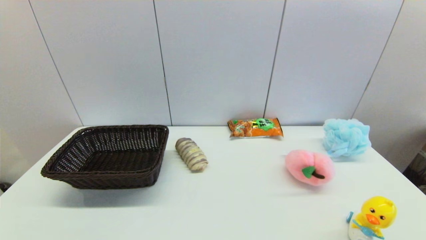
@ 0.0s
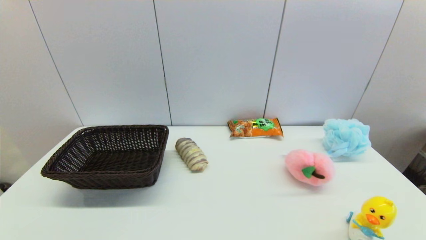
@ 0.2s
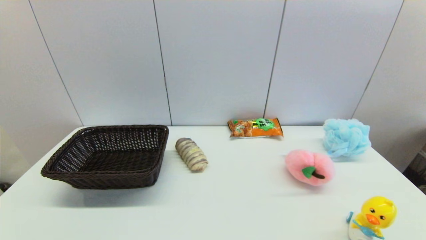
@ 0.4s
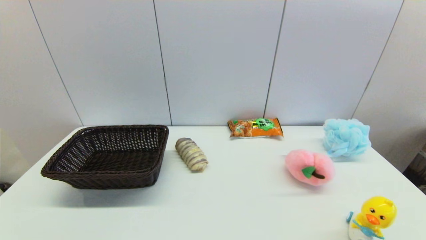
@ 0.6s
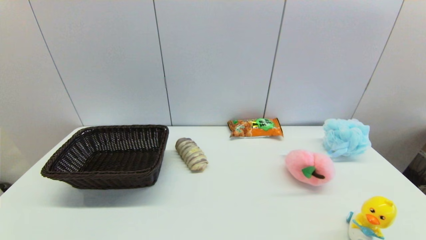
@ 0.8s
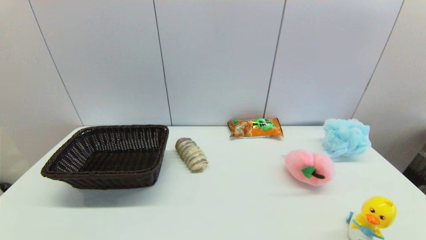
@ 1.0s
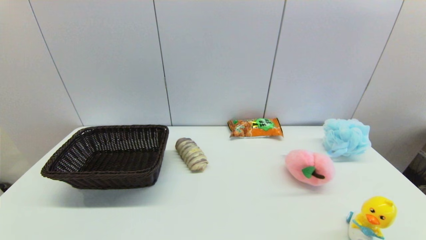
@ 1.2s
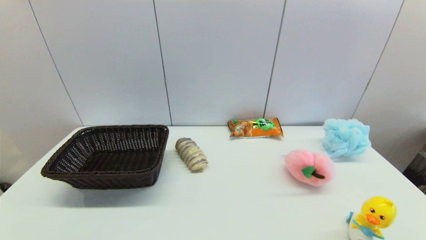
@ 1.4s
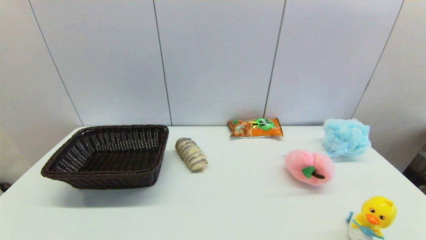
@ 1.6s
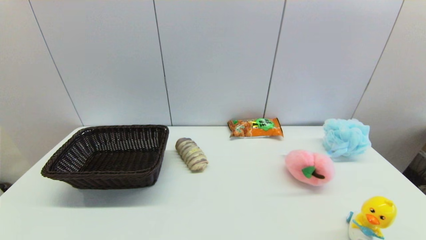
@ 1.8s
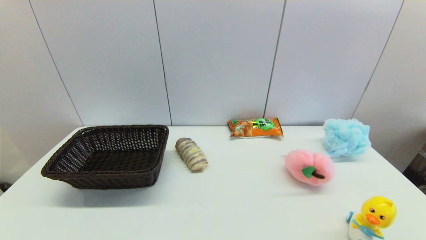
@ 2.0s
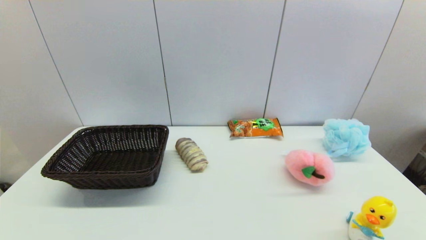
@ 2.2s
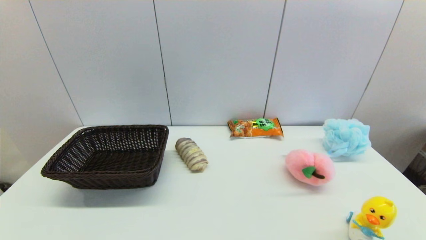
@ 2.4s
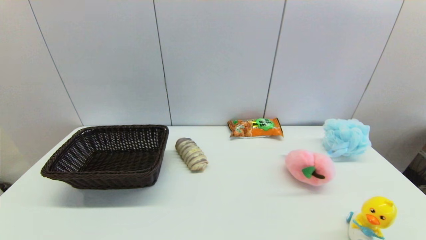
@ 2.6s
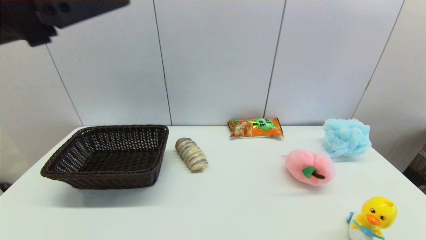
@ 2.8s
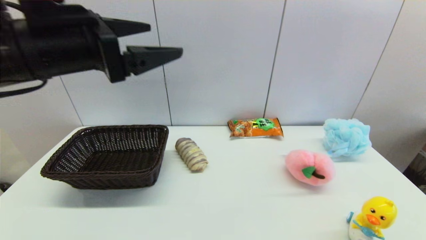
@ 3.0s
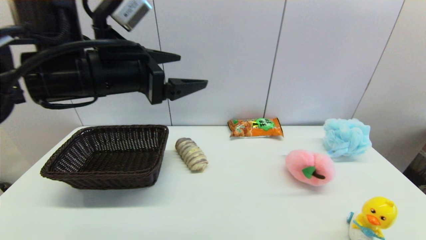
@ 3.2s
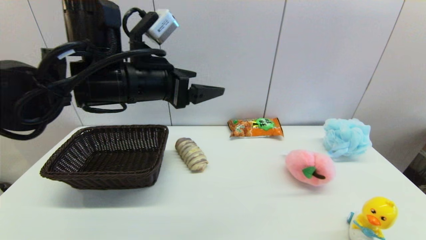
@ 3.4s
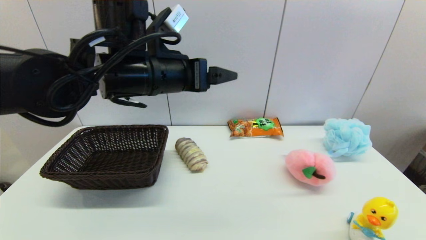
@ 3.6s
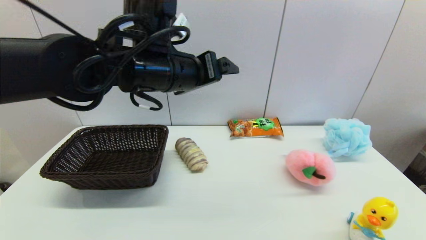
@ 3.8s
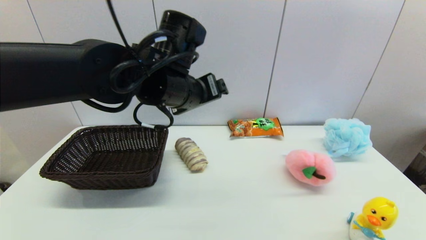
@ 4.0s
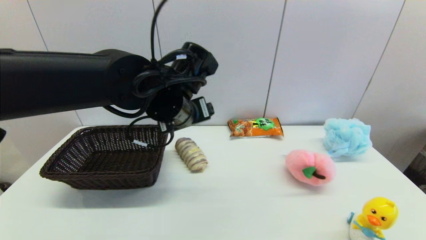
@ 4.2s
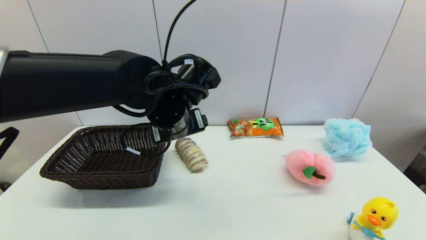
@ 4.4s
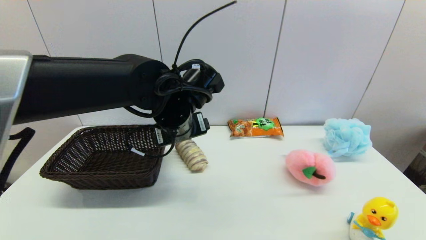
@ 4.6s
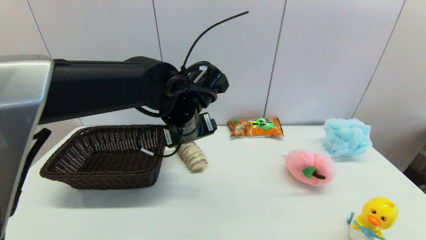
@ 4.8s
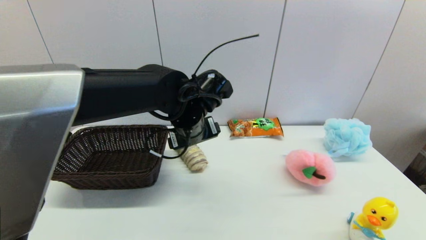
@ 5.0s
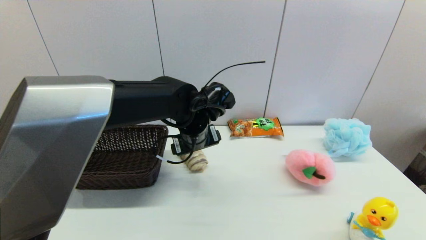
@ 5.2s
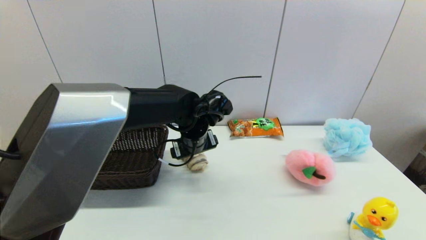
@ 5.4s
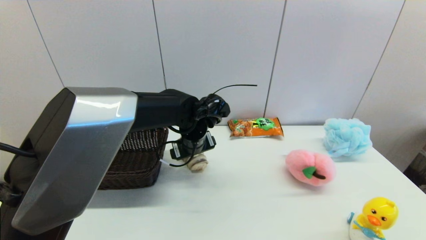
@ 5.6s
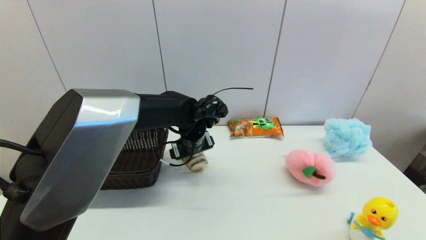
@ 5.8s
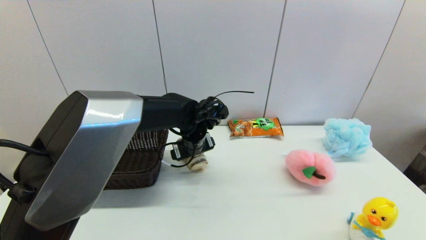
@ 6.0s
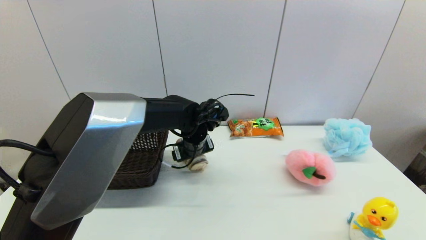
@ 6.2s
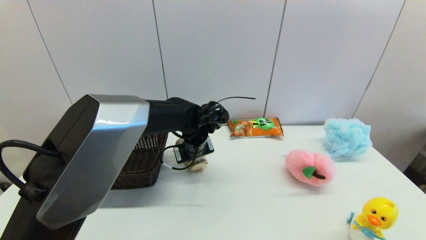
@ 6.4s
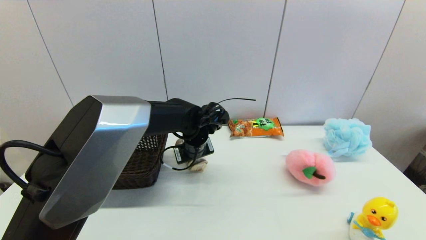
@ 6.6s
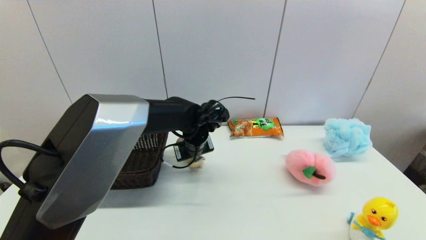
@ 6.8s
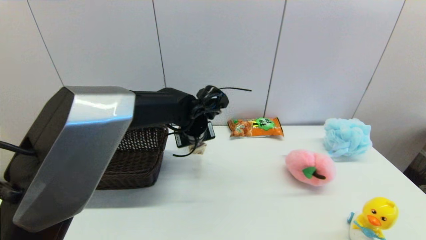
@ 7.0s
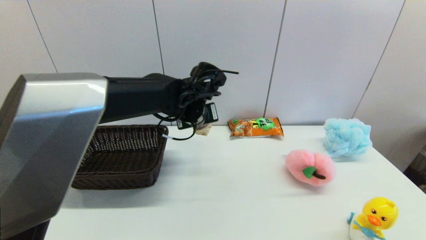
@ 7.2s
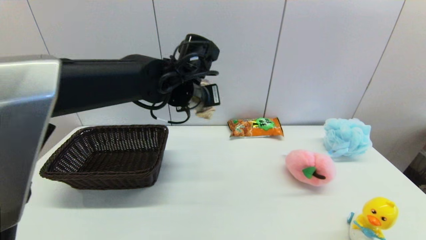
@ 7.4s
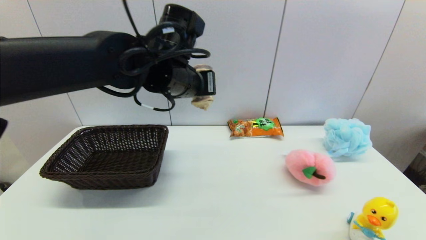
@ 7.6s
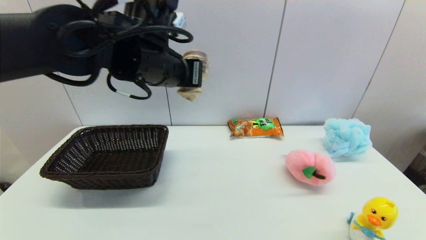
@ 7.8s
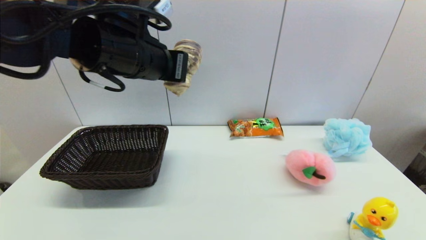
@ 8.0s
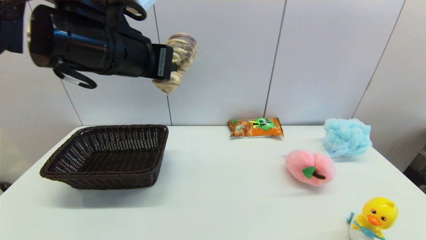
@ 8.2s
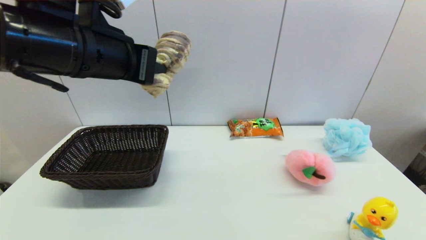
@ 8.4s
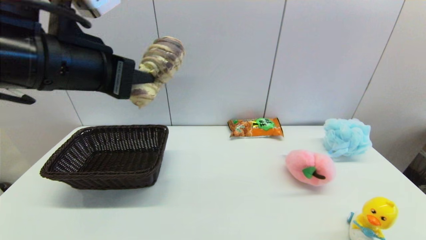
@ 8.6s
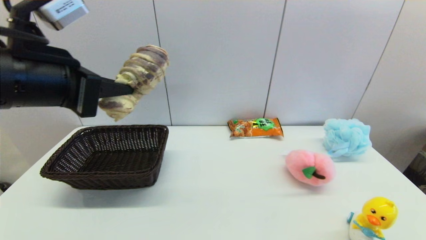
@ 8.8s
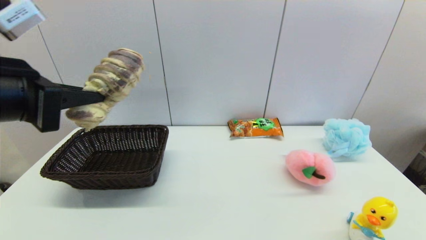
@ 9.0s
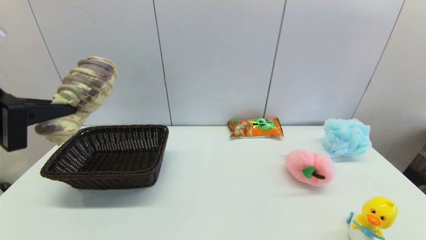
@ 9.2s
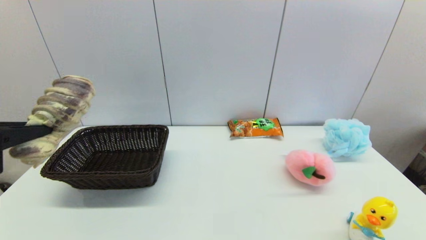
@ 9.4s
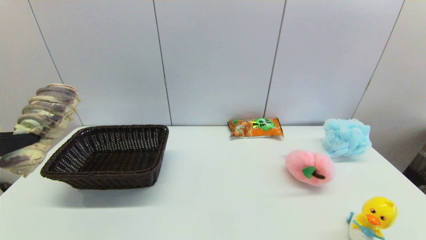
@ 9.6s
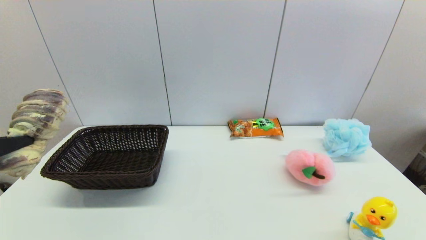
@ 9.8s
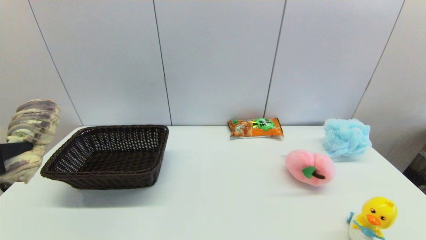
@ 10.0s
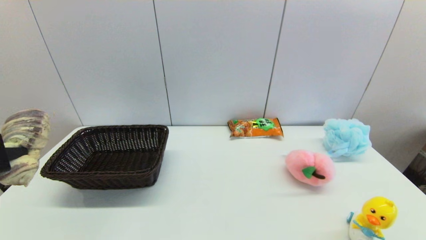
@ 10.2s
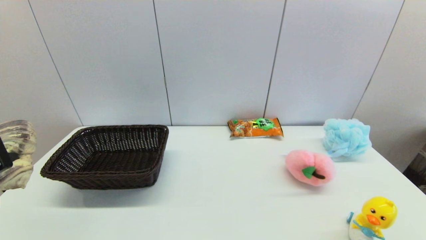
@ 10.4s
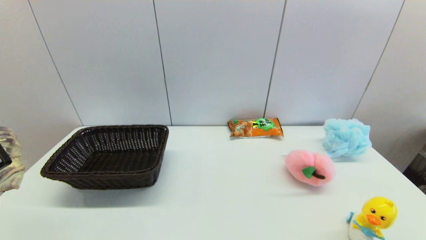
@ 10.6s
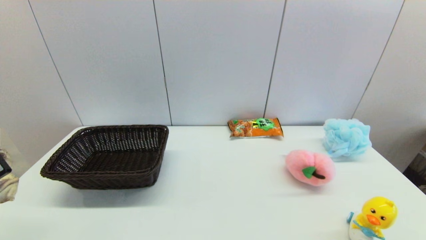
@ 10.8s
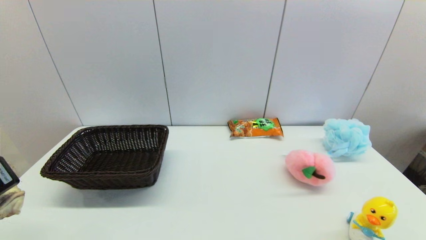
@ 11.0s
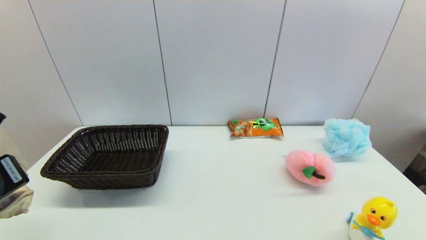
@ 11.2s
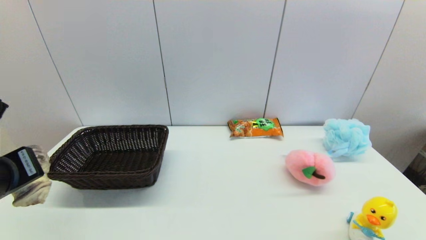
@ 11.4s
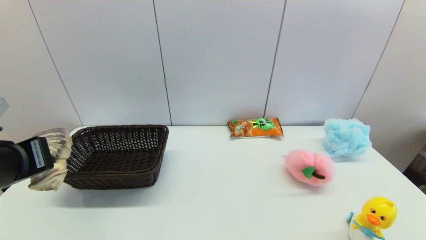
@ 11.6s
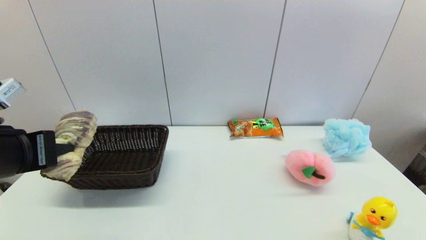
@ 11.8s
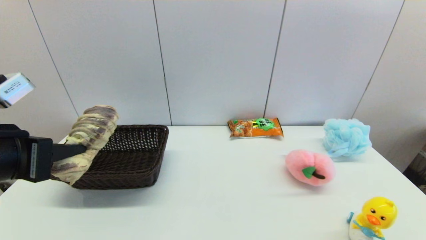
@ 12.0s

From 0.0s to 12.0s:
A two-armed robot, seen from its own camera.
Step, from 2.8s to 6.6s: Grasp the long bread with left gripper.
From 1.6s to 3.0s: The left gripper shifts about 35 cm upward, forward and to the right.
From 3.0s to 4.4s: The left gripper moves to the right, downward and forward, some 20 cm.
From 4.4s to 6.0s: The left gripper is displaced downward and forward by approximately 10 cm.
From 6.0s to 7.6s: The left gripper shifts roughly 15 cm upward, and closes its fingers.
From 7.6s to 9.0s: The left gripper travels to the left and backward by some 25 cm.
From 9.0s to 10.4s: The left gripper is displaced downward and to the left by approximately 10 cm.

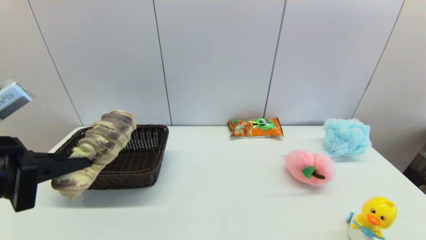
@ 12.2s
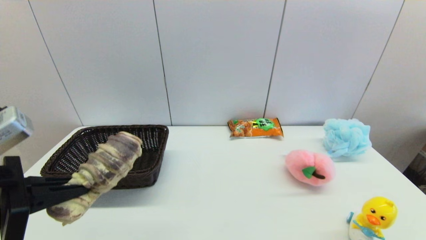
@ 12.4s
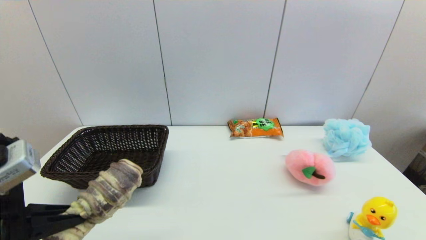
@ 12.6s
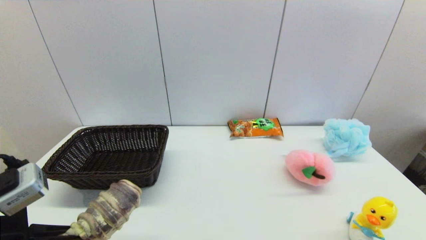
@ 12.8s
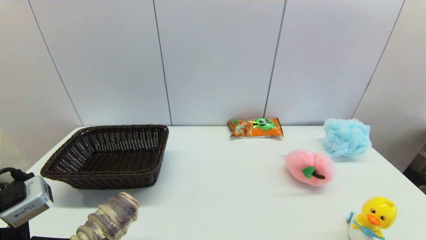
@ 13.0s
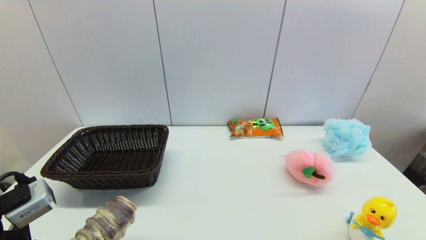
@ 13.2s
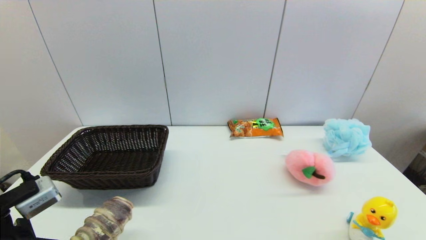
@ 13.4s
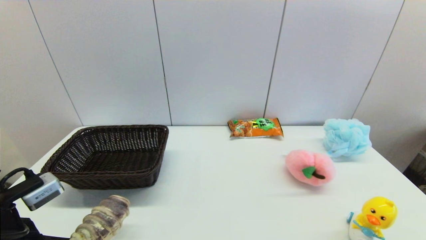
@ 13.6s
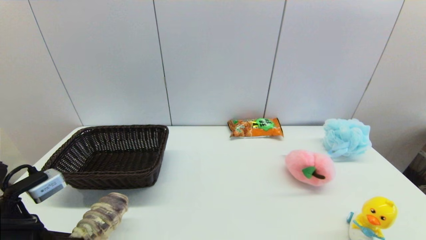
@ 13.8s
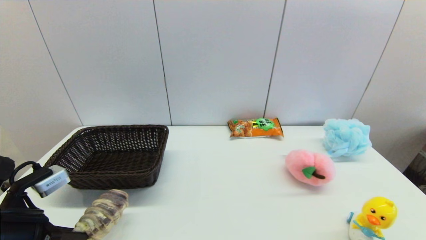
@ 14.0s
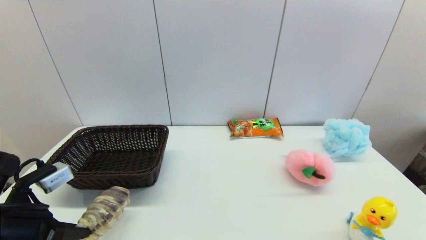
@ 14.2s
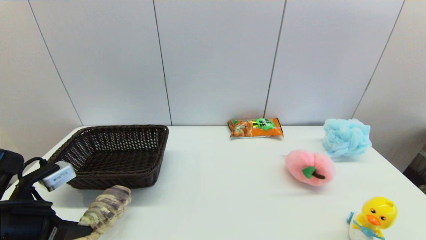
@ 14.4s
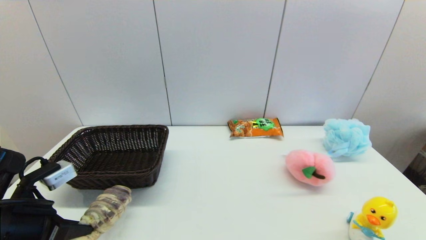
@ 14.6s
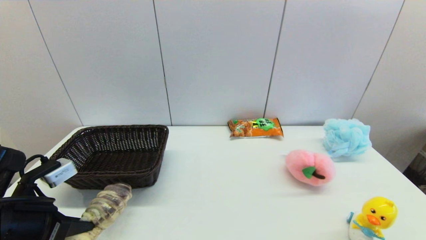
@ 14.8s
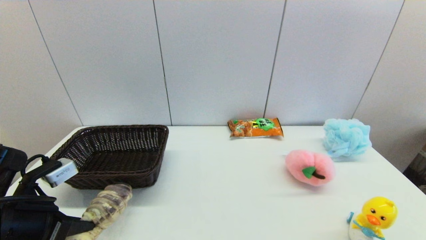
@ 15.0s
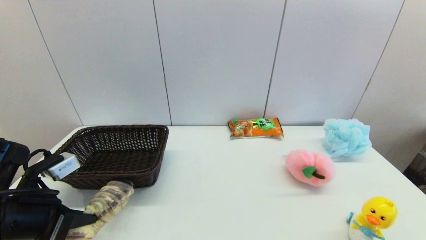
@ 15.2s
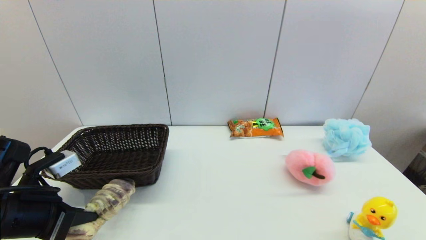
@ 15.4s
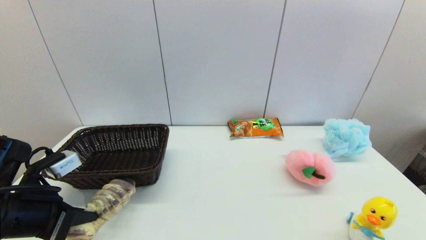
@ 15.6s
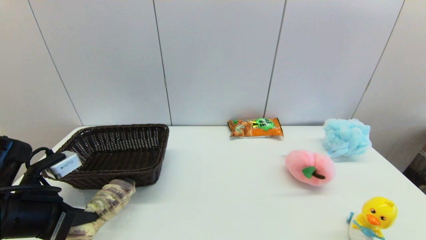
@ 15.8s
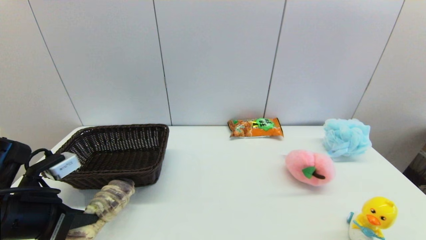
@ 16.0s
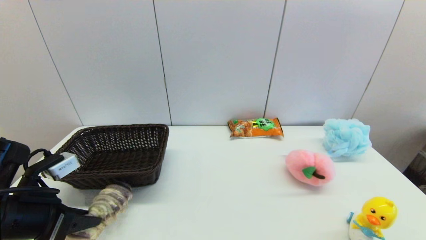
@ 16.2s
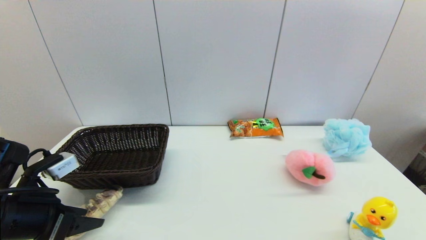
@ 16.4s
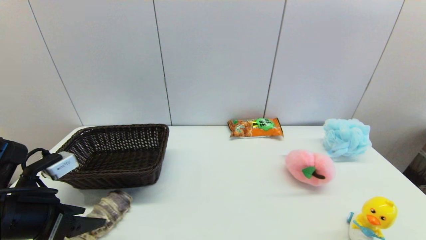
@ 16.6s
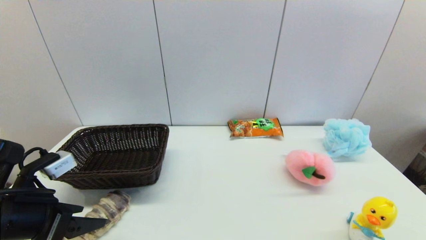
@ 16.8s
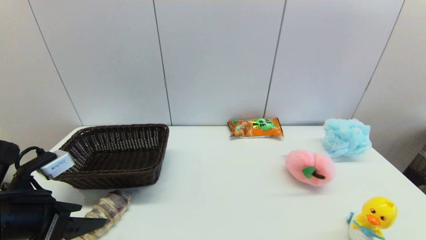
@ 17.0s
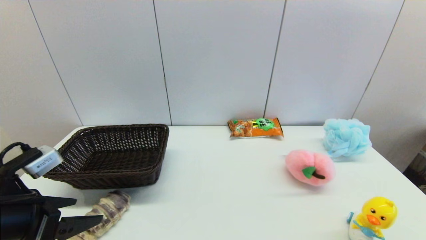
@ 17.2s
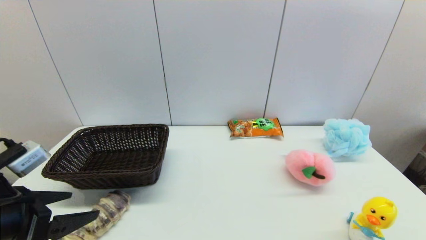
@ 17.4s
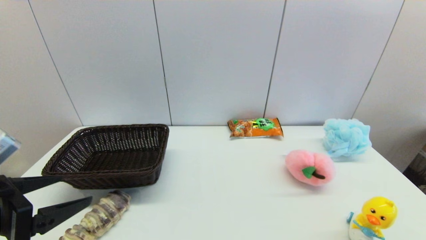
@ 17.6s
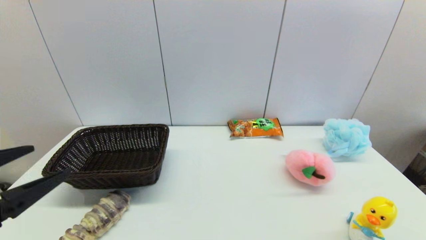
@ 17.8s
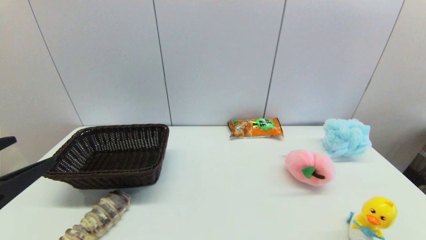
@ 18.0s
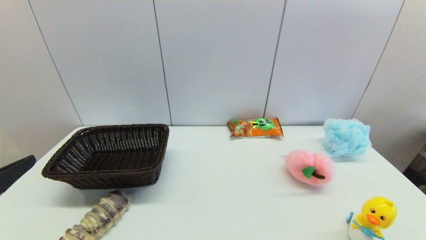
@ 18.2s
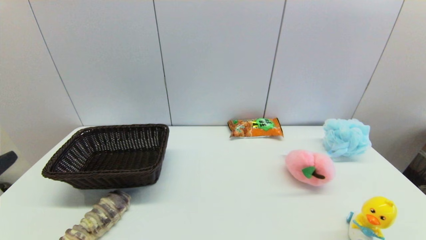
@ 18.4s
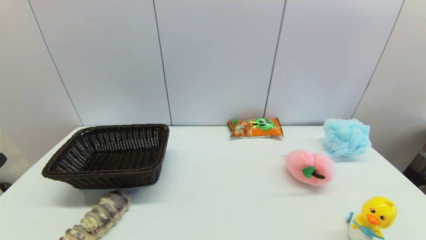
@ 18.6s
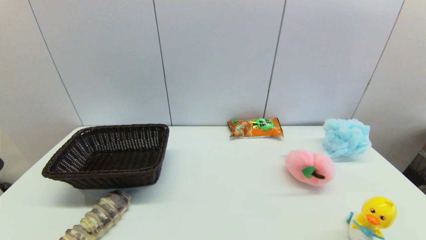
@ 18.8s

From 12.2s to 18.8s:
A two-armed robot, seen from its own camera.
Step, from 12.2s to 16.4s: Place the long bread on the table with left gripper.
From 12.2s to 13.8s: The left gripper moves downward, approximately 10 cm.
From 13.8s to 15.4s: The grippers stay close to where they were, moving slightly.
From 15.4s to 17.2s: The left gripper opens.
From 17.2s to 18.8s: The left gripper goes some 10 cm backward.
